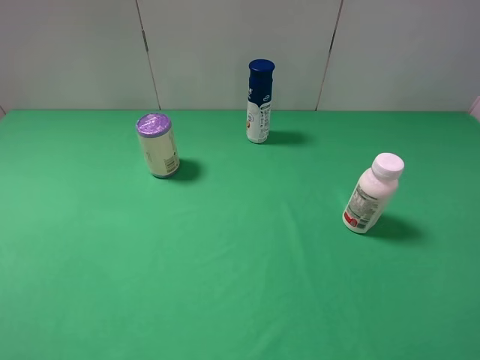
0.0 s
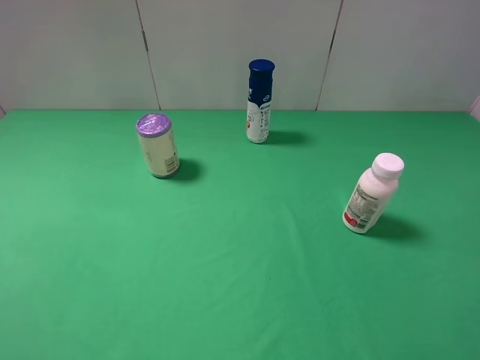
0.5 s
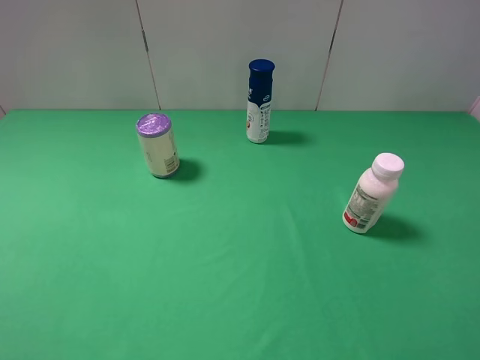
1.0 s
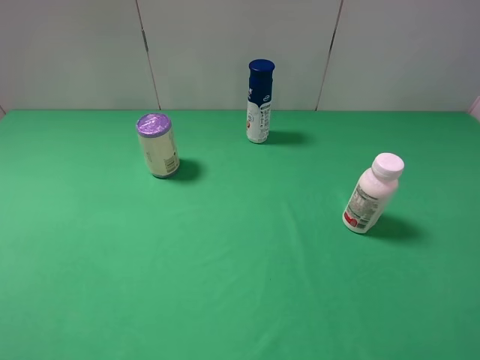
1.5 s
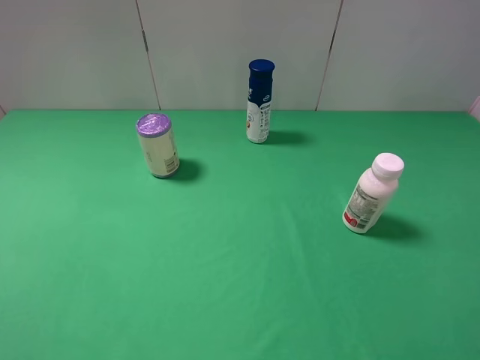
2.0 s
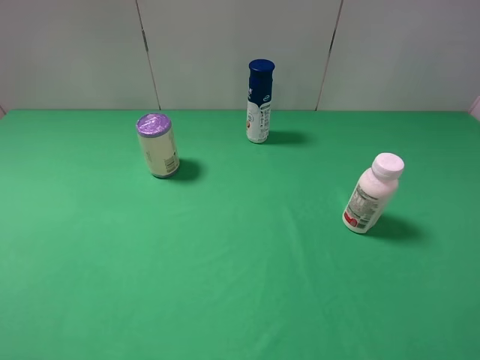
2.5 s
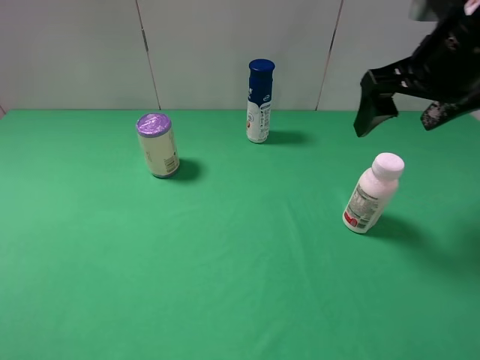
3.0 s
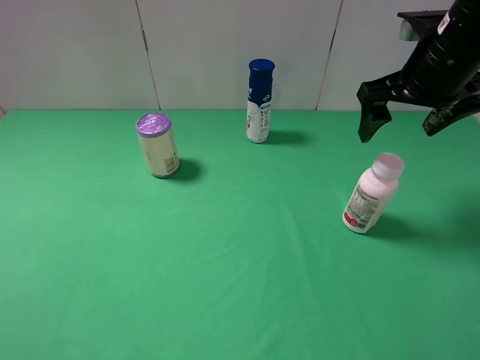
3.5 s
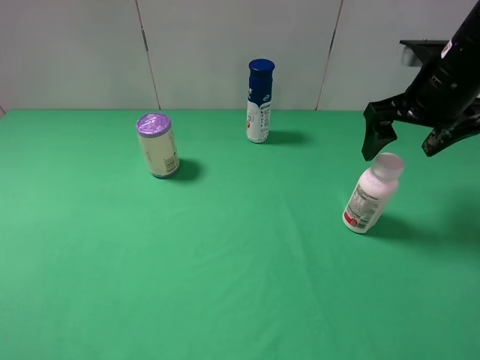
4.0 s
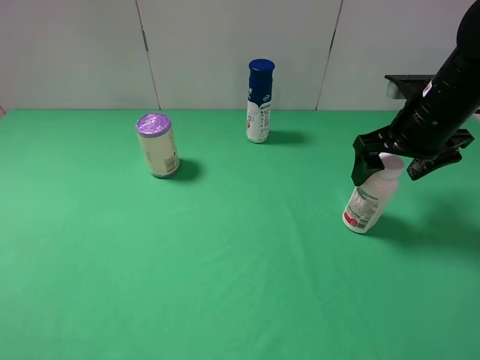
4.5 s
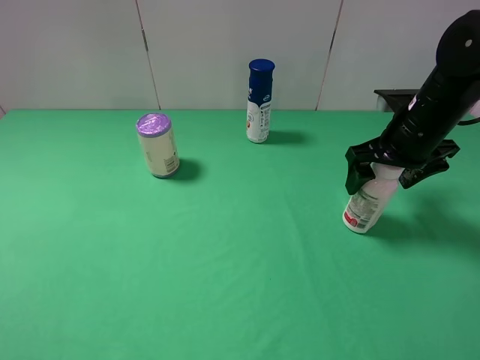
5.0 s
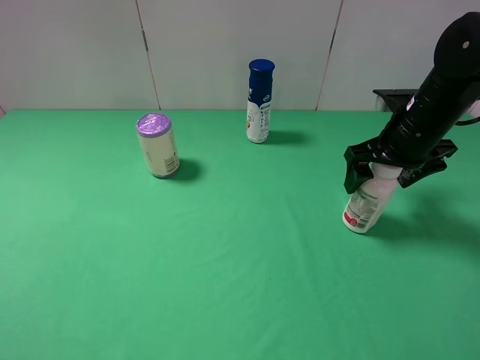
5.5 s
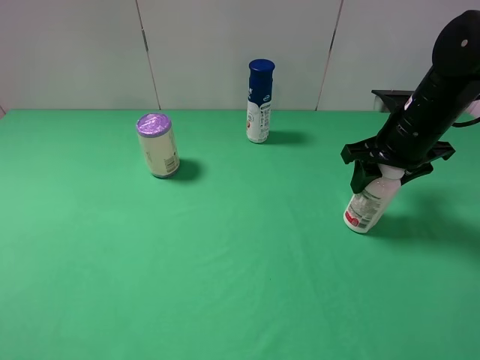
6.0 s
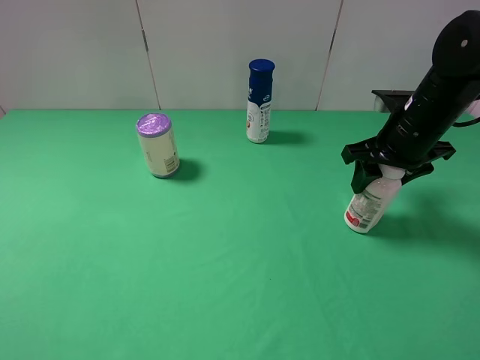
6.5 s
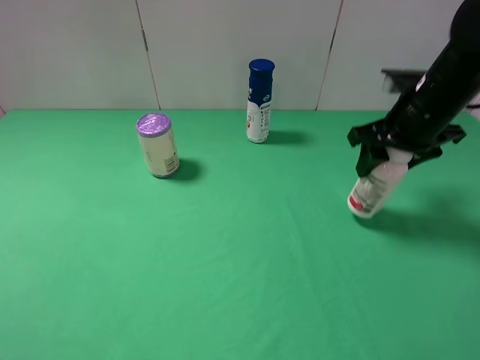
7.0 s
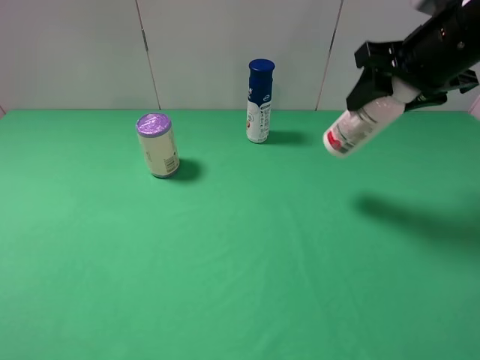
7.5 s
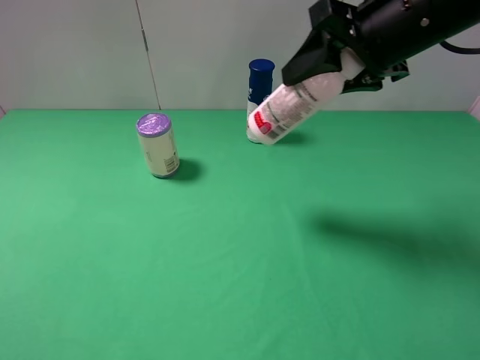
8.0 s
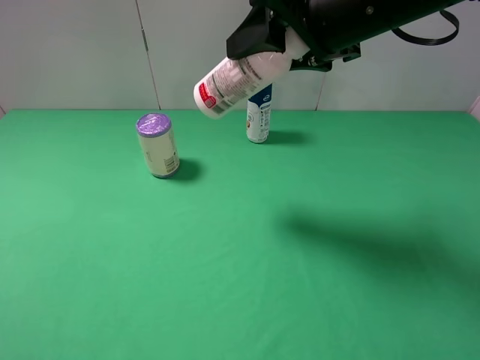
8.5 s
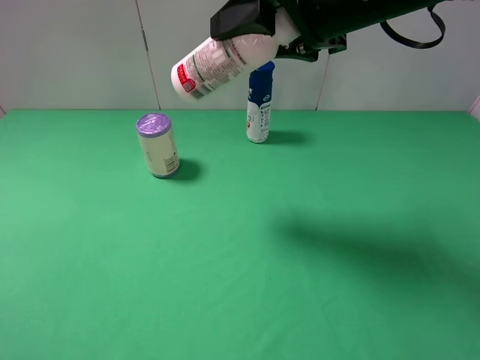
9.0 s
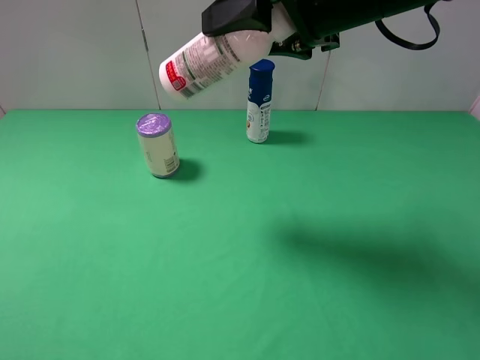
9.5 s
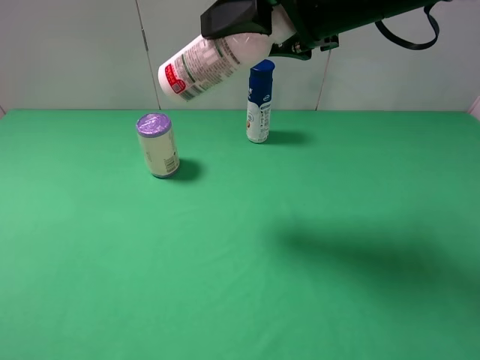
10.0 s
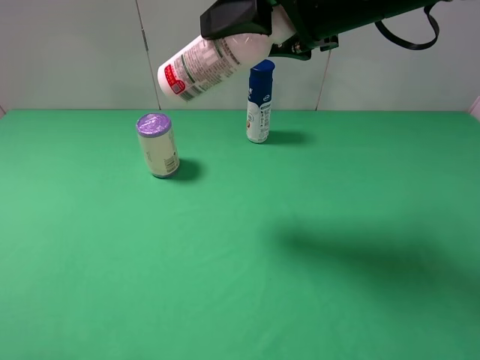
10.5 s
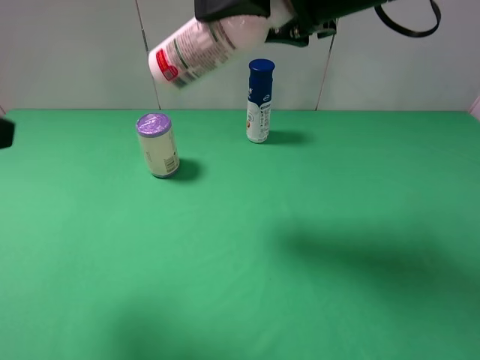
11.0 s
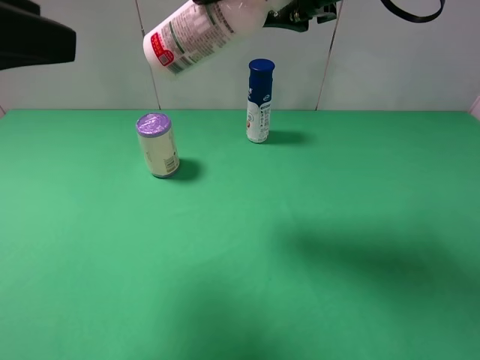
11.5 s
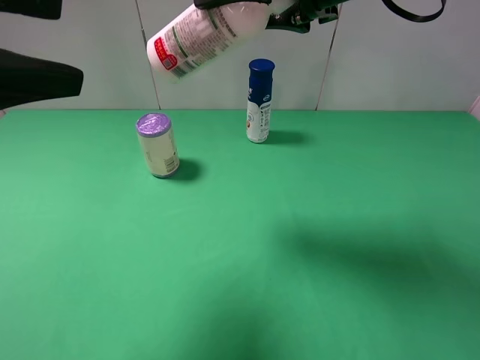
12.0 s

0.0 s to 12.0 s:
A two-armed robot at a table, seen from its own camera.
Task of the whole recording: use the right gripper to pick up the item and transfer it from the right gripper to the left gripper.
Step, 0.0 to 6.0 s: Use the right gripper to grab the milk on the right side of the table.
0.0 to 2.0 s: Both grippers stay put.
2.0 to 4.0 s: The right gripper shifts about 30 cm forward.
4.0 to 6.0 s: The right gripper is displaced downward by some 5 cm, and closes.
6.0 to 8.0 s: The right gripper travels upward and to the left by about 15 cm.
8.0 to 10.0 s: The right gripper heads to the left, covering approximately 5 cm.
10.0 to 12.0 s: The left gripper goes about 20 cm forward, upward and to the right.

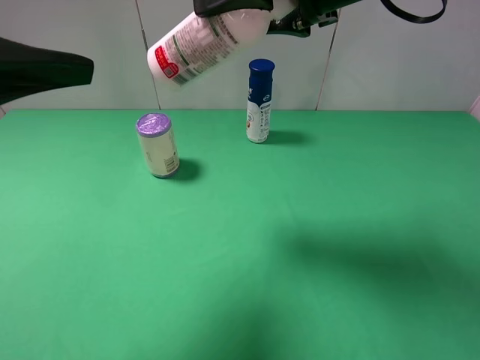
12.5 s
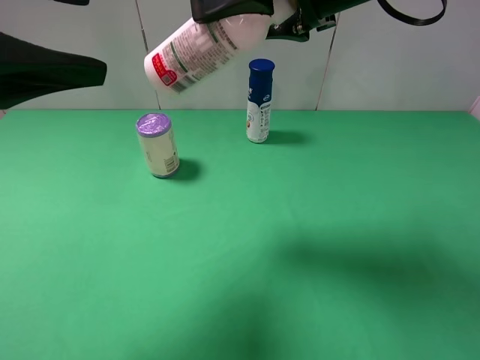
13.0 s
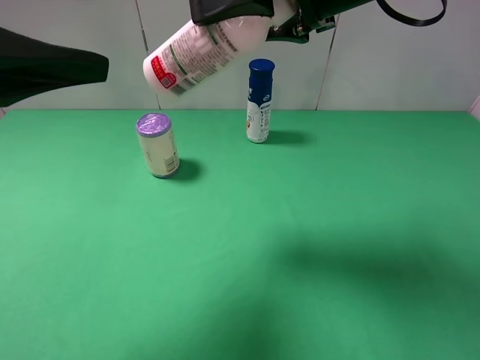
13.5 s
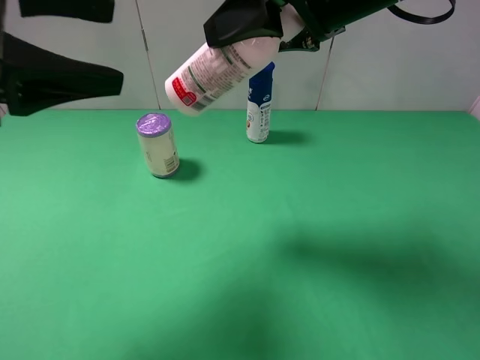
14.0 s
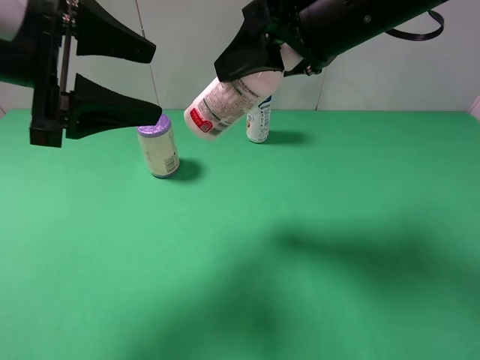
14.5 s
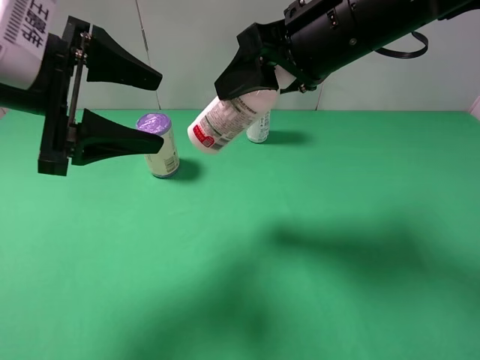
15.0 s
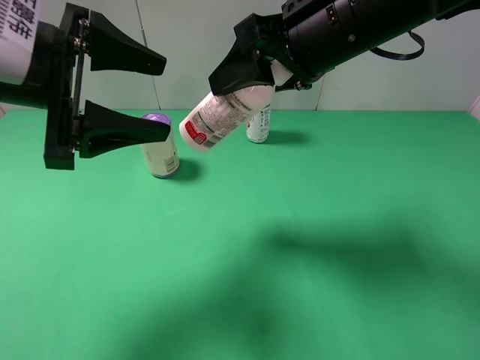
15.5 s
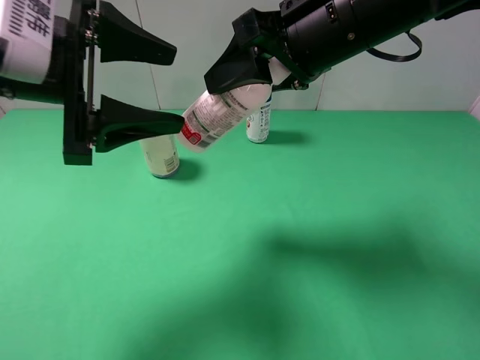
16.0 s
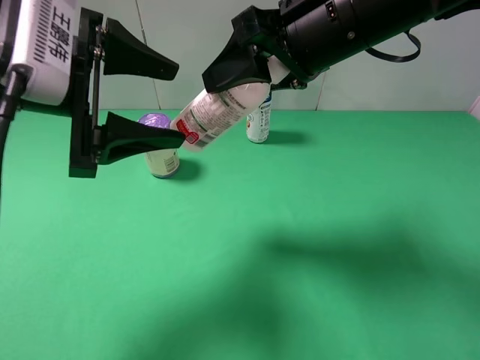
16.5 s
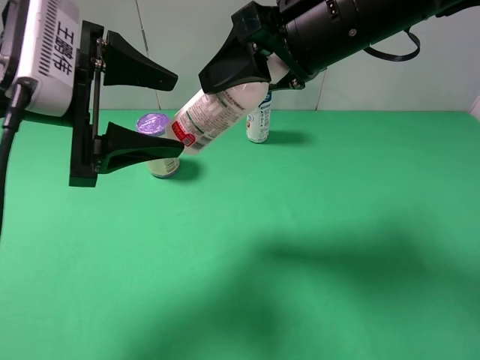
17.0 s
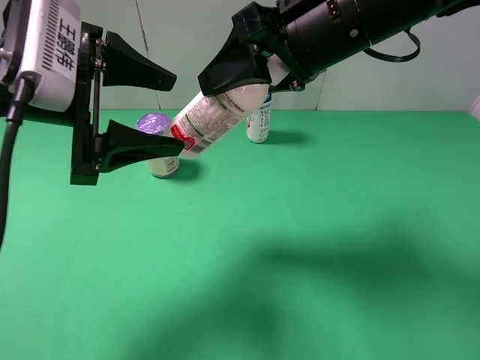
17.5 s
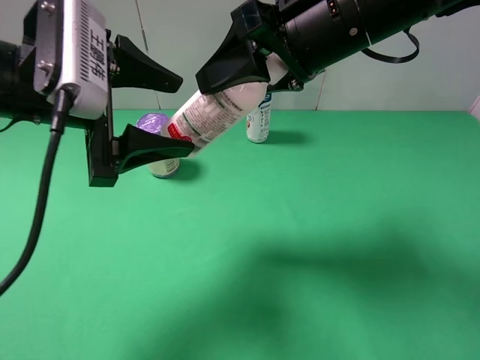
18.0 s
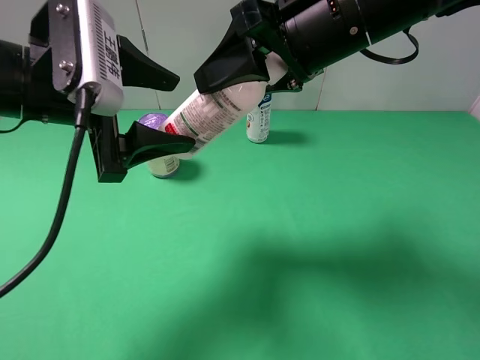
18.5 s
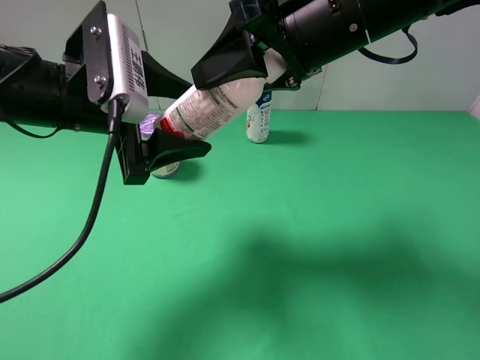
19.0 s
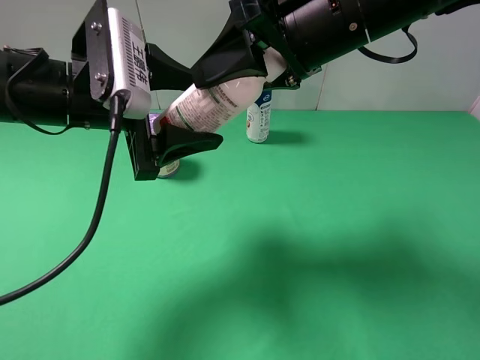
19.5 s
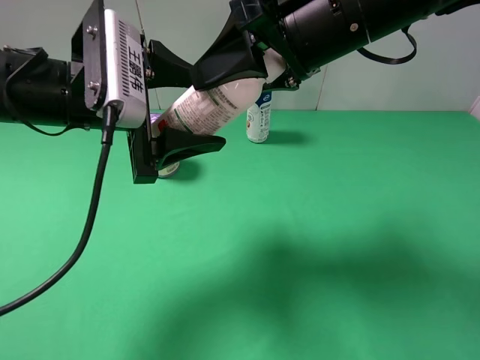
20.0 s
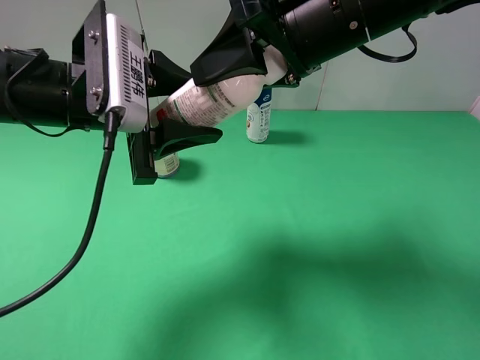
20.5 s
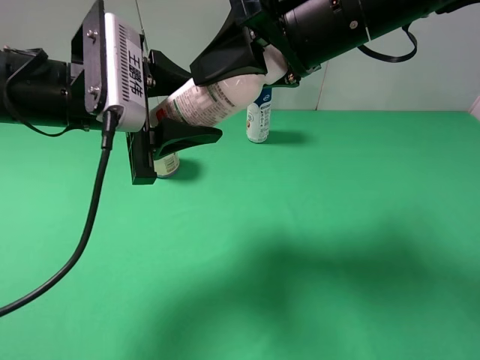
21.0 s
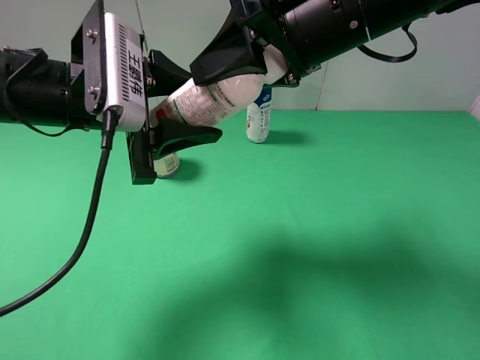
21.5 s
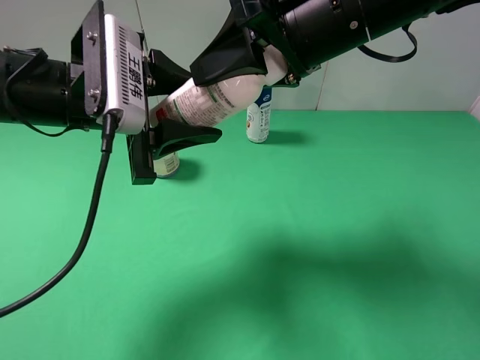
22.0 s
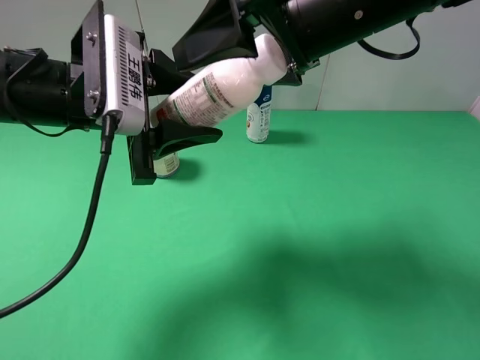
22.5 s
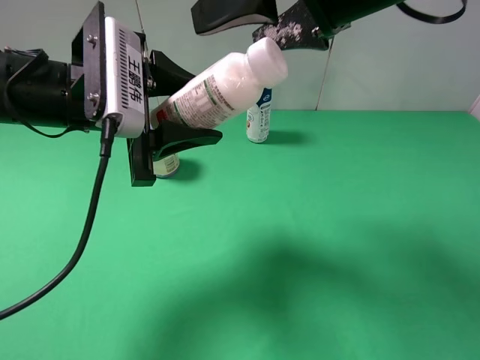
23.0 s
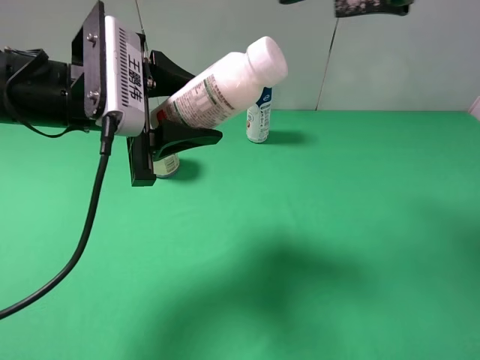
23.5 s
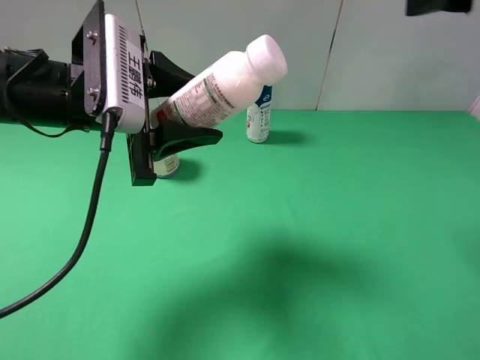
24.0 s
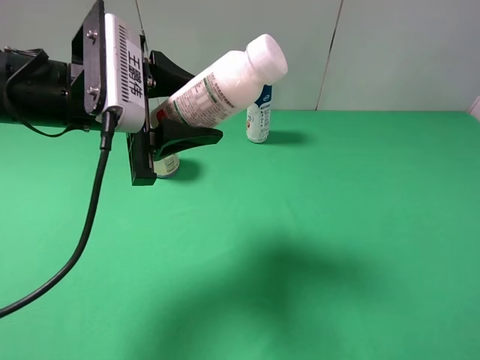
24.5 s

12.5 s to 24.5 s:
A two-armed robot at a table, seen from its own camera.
Task of the whole recording: use the right gripper to pick up the item and transfer it from the right gripper to the left gripper.
Step, 12.5 to 22.5 s: Pass the milk to the left gripper.
12.5 to 14.5 s: The left gripper moves forward and downward, some 10 cm.
14.5 to 18.5 s: The grippers move only a little.
18.5 to 20.5 s: The left gripper closes.
20.5 to 22.5 s: The right gripper opens.
22.5 to 24.5 s: The right gripper goes some 25 cm to the right and backward.

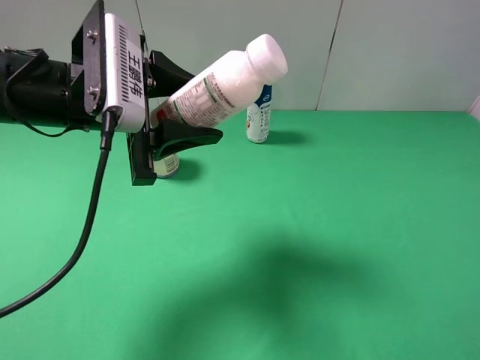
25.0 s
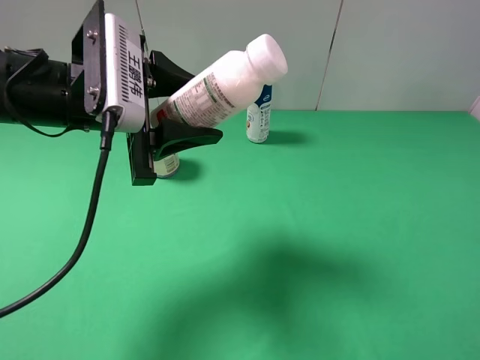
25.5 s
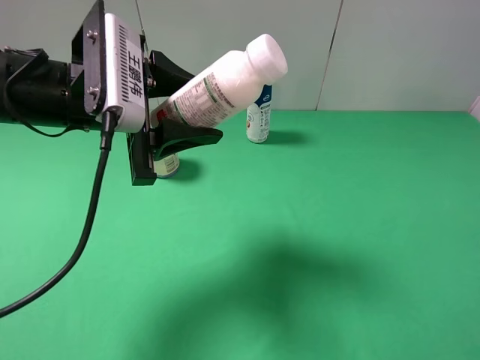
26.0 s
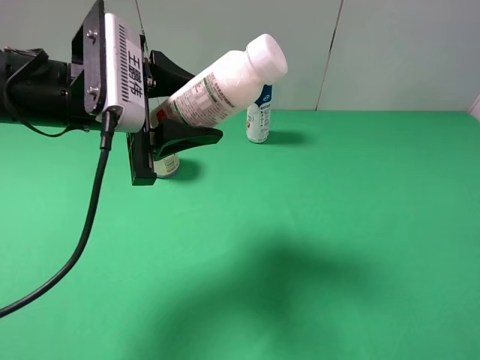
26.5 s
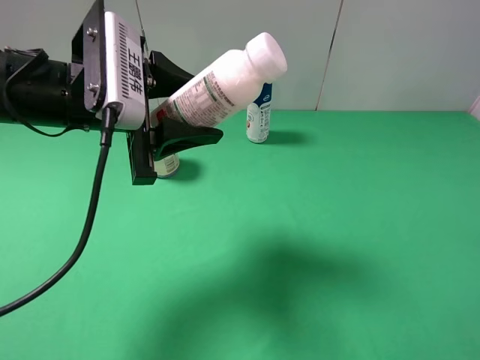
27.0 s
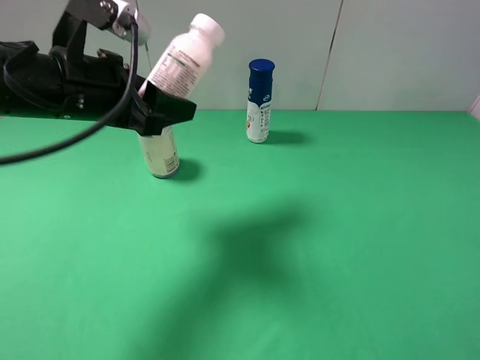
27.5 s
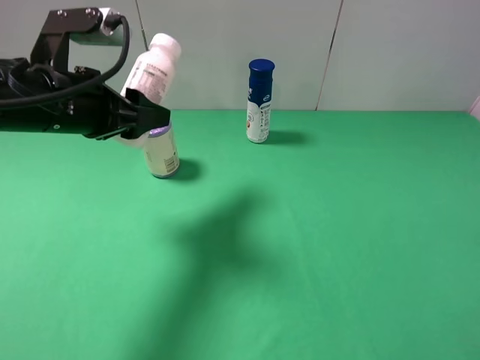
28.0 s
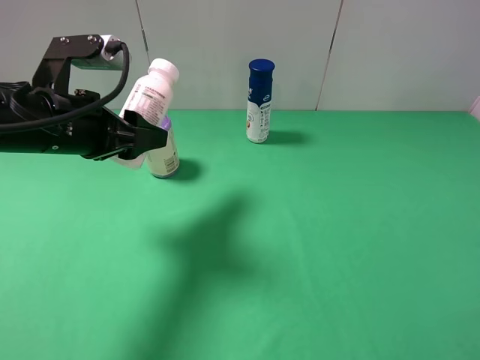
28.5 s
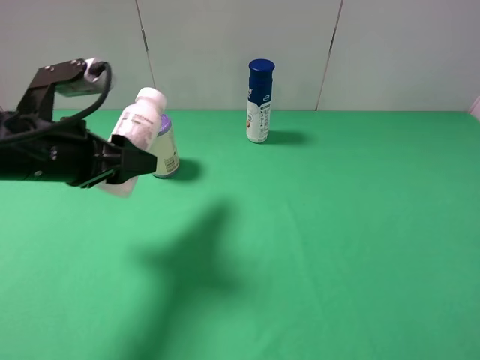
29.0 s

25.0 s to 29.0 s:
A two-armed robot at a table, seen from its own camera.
Task of the whole recording: use the right gripper to pick up the item and transfer it from the right gripper to the left gripper.
25.0 to 27.0 s: The grippers move only a little.
27.0 to 29.0 s: The left gripper shifts roughly 5 cm to the left.
